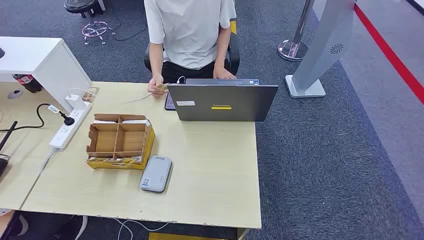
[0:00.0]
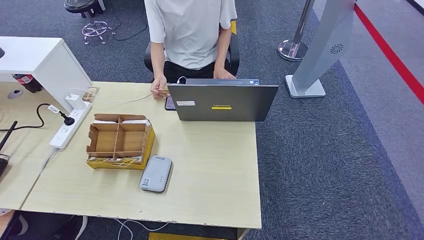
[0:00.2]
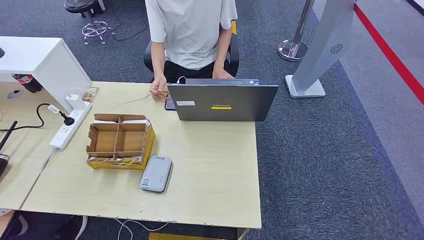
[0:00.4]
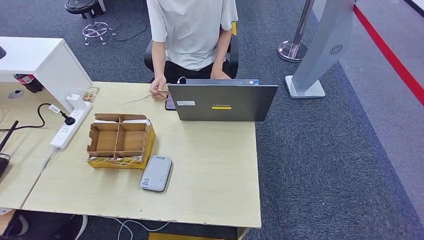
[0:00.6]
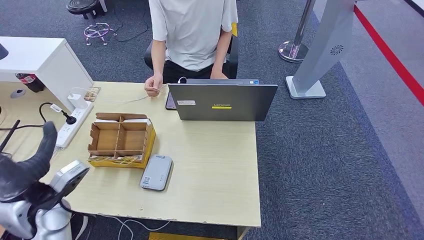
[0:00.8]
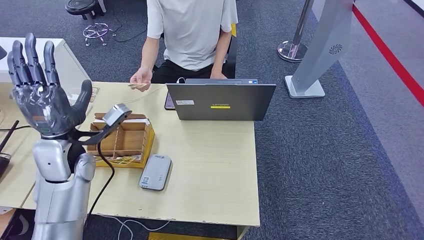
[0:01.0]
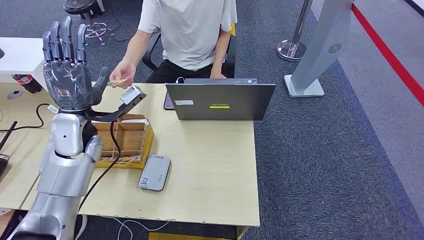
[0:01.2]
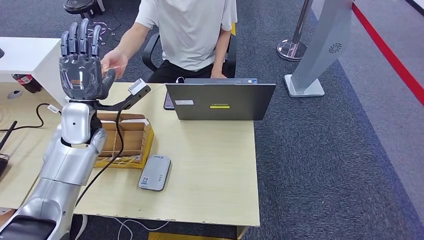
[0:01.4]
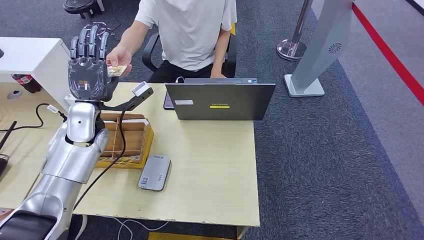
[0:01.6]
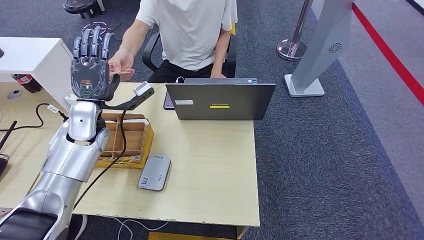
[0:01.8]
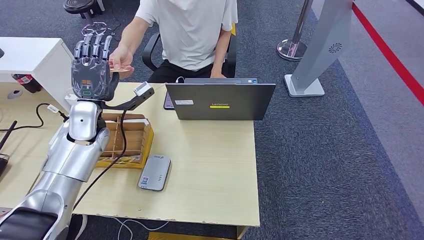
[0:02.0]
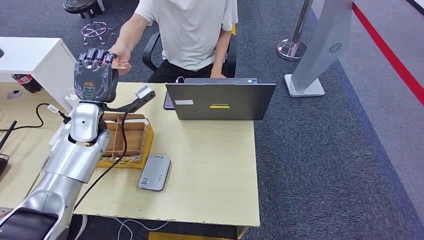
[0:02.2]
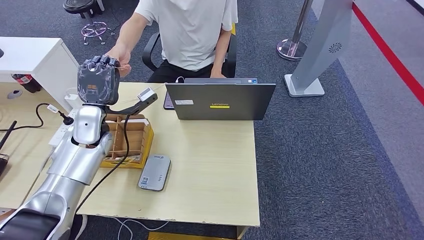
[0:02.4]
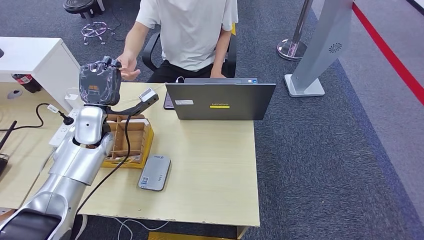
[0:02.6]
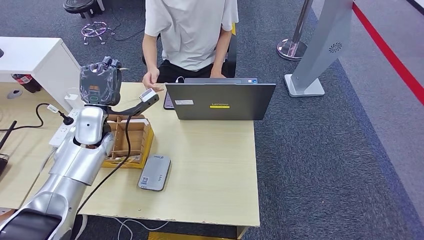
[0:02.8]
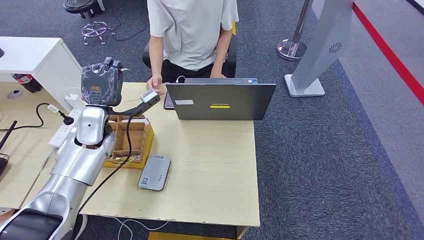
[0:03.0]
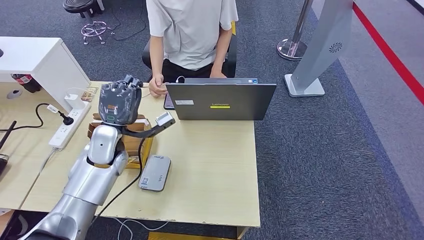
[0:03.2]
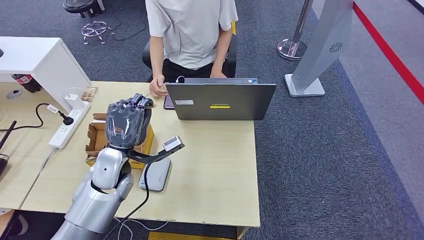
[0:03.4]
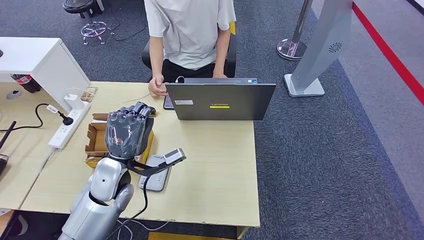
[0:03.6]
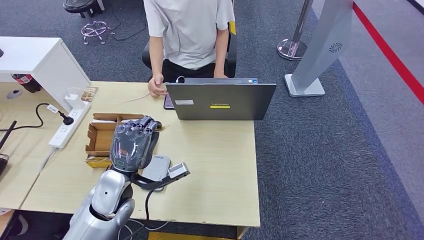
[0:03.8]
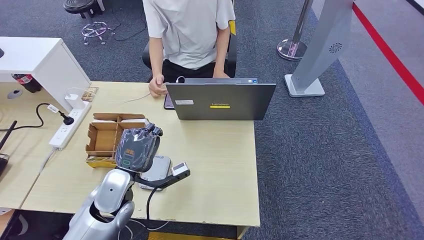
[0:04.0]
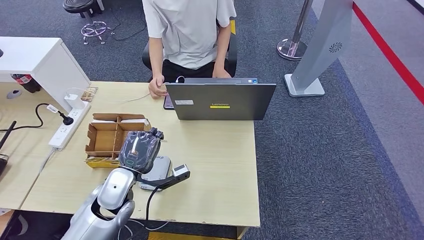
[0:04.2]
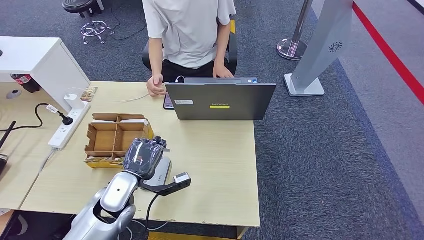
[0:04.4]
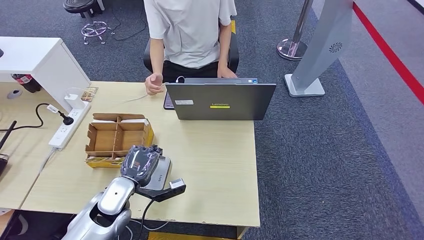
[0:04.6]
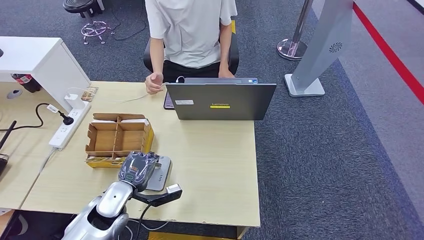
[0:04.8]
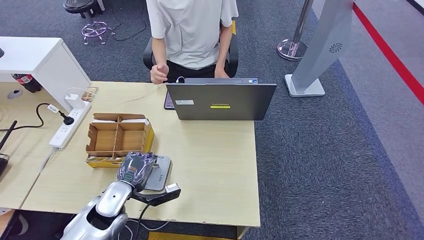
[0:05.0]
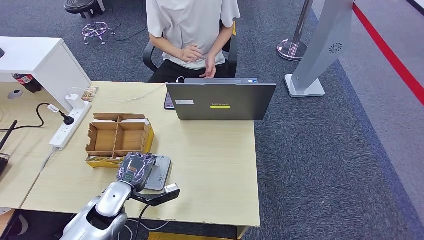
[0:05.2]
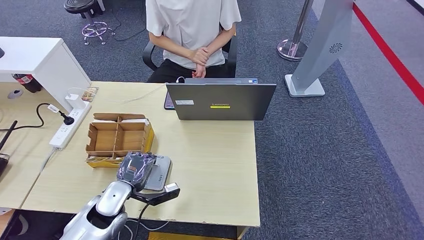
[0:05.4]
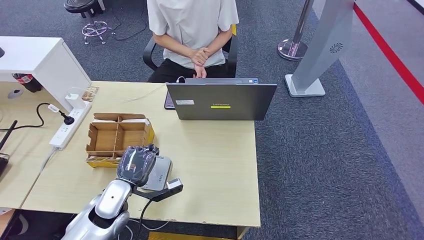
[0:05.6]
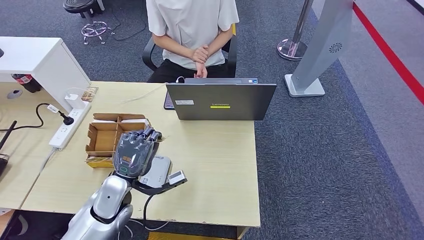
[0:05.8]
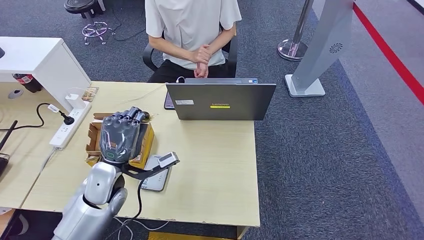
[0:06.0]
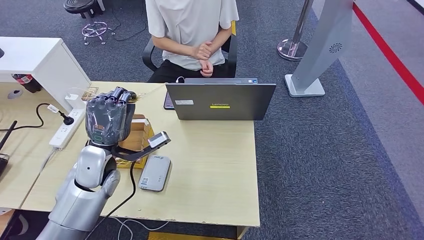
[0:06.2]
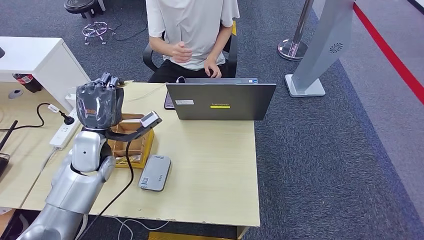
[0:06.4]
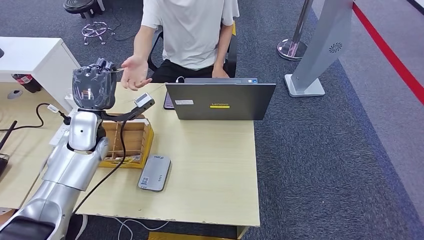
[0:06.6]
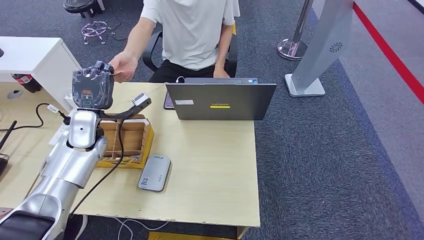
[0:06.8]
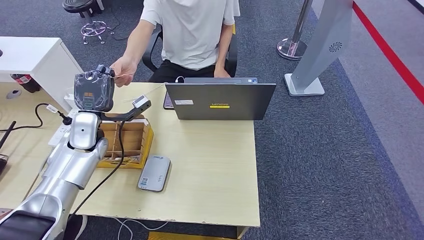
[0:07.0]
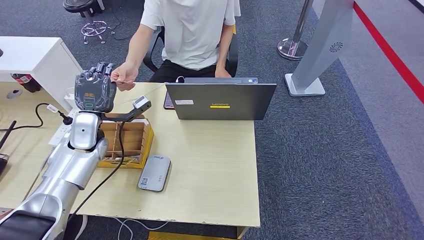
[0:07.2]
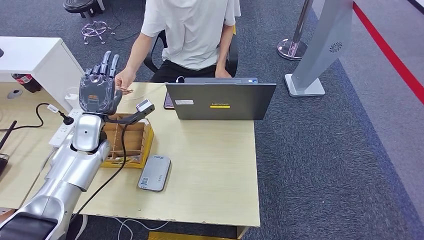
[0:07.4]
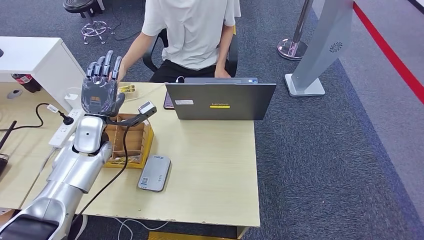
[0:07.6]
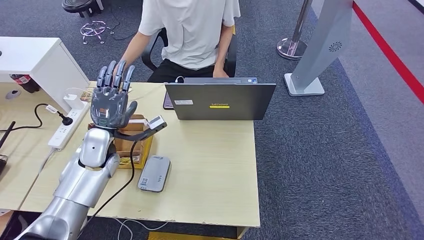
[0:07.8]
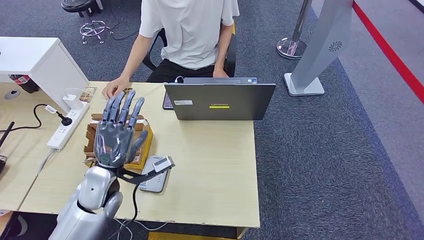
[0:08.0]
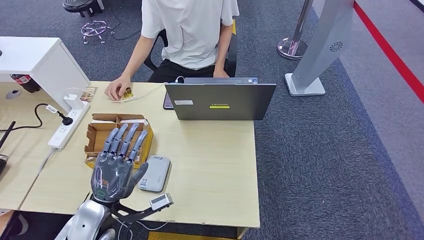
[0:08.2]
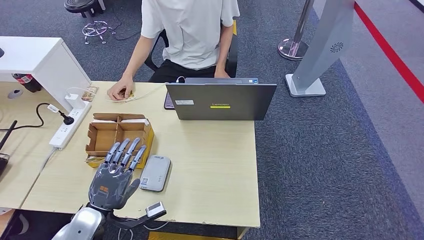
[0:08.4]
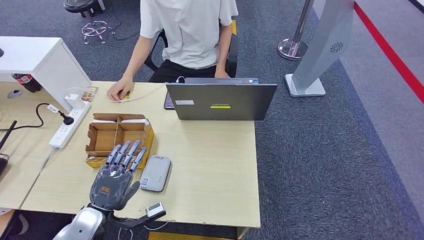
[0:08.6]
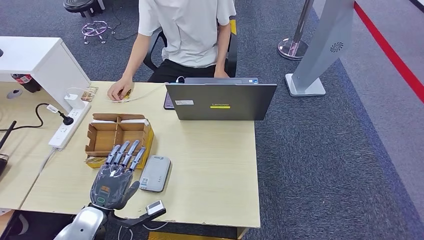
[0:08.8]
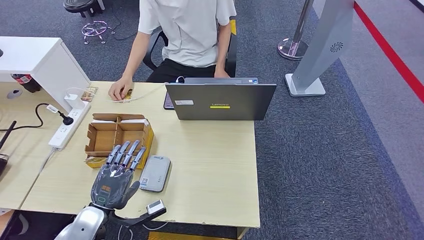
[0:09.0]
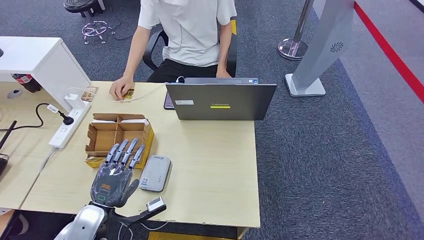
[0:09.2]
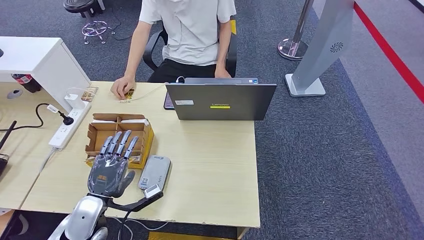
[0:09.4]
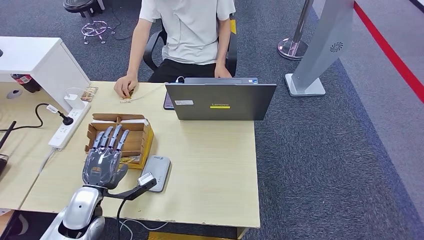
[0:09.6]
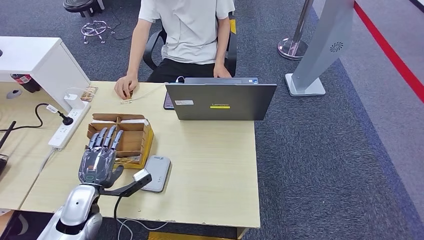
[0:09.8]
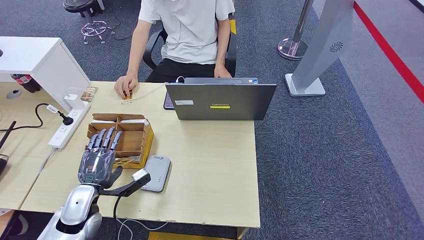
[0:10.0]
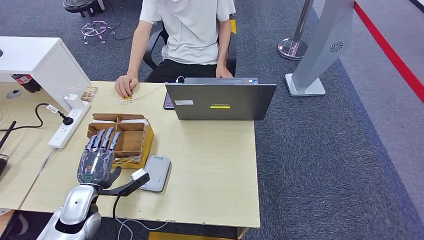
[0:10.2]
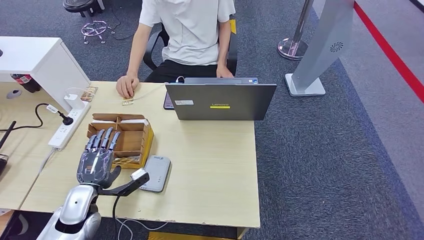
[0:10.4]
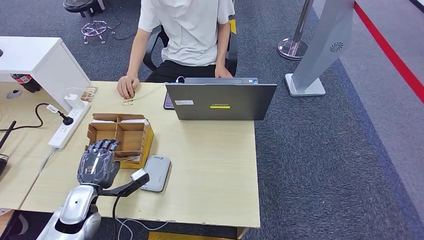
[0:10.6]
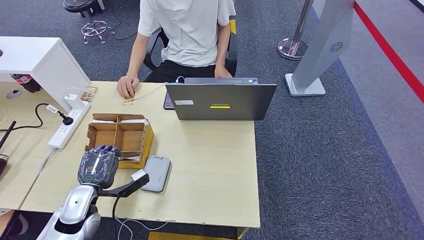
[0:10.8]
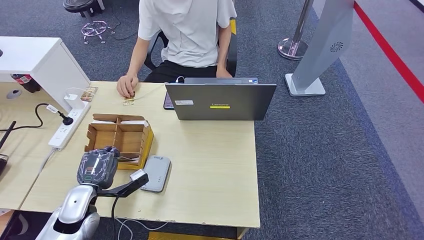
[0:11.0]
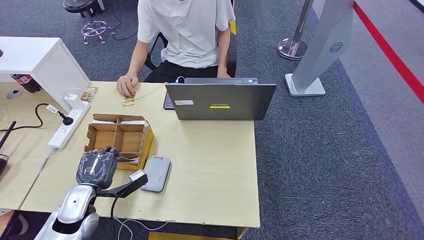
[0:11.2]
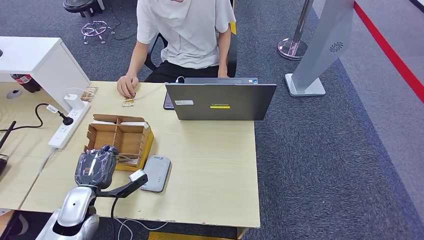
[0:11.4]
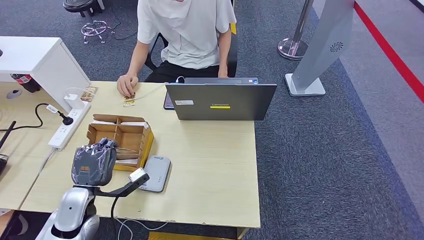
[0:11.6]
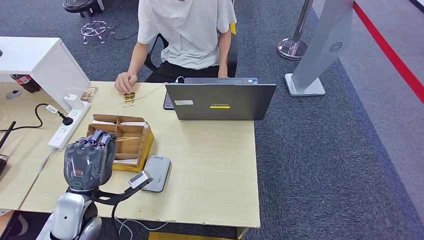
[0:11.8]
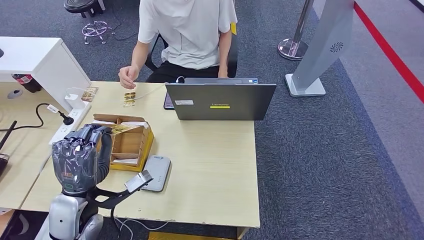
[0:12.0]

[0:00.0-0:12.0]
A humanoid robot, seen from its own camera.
Step, 0:00.0 to 0:04.0: Take the ID card from the person's hand.
Step, 0:04.6 to 0:05.4: Place the ID card on the card reader.
Step, 0:05.6 to 0:07.2: Hand the ID card to the person.
0:01.6 to 0:03.0: The hands make only small movements.
0:03.0 to 0:04.4: The left hand is displaced backward, downward and to the right by about 20 cm.
0:06.0 to 0:07.6: The left hand heads forward and to the left, covering roughly 10 cm.
0:07.6 to 0:09.0: The left hand goes approximately 20 cm backward and downward.
0:09.0 to 0:10.4: The left hand heads to the left, covering some 5 cm.
0:10.4 to 0:12.0: The left hand goes some 10 cm upward.

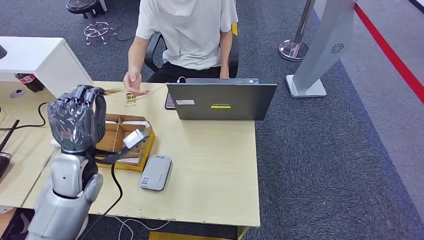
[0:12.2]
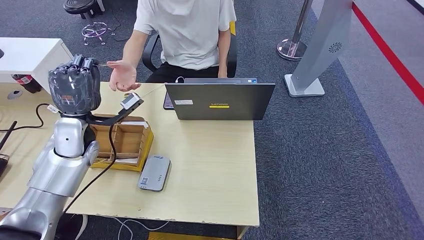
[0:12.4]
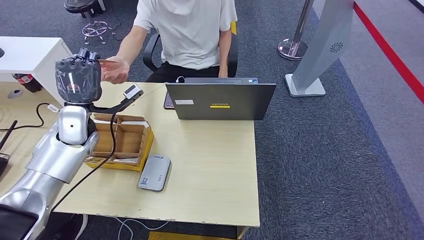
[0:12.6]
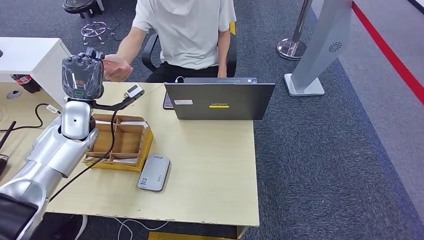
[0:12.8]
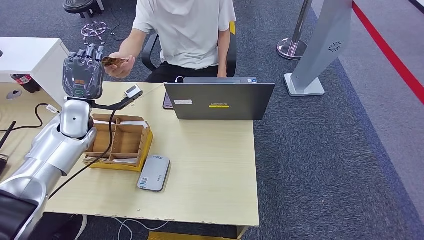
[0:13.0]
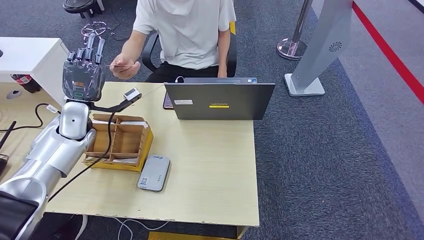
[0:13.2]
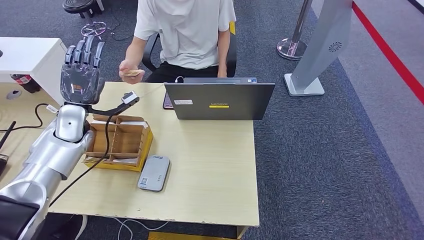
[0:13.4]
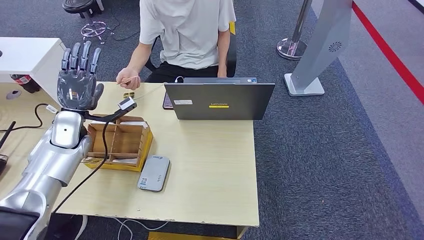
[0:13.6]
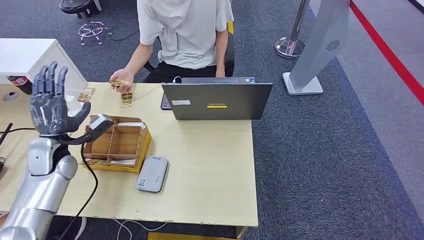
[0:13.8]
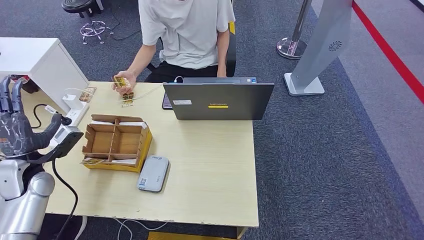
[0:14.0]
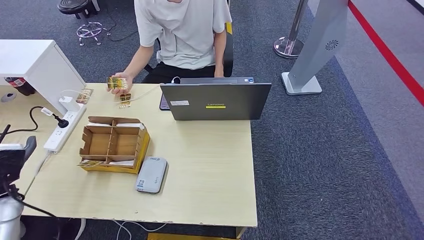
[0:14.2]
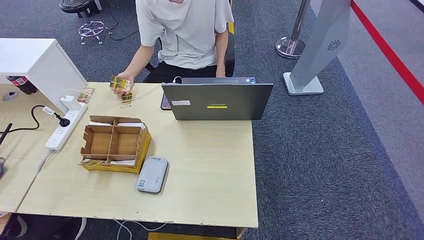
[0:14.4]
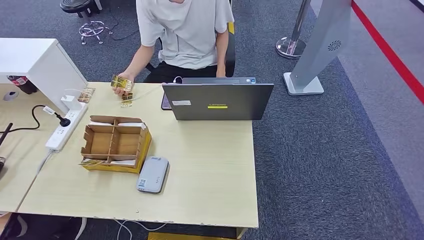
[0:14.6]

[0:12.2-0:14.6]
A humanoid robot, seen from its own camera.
Step, 0:13.2 to 0:14.4: Hand the room key to the person.
0:12.2 to 0:13.4: The left hand shifts approximately 15 cm forward and to the left.
0:13.4 to 0:14.6: The left hand travels backward, to the left and downward by approximately 40 cm.
